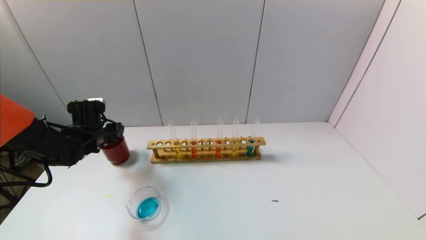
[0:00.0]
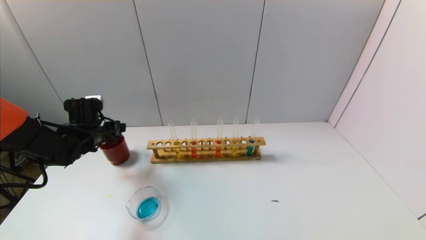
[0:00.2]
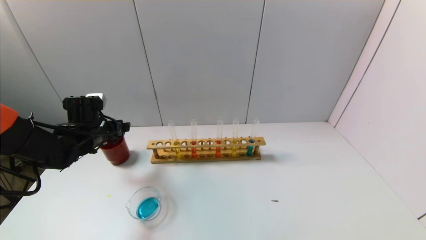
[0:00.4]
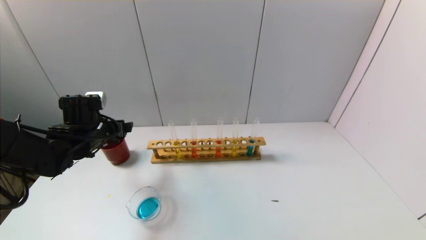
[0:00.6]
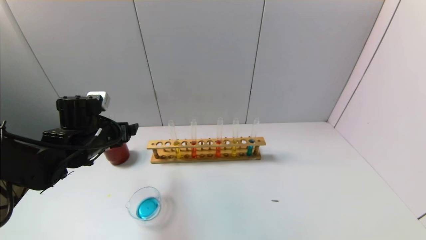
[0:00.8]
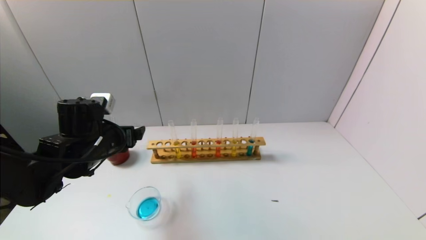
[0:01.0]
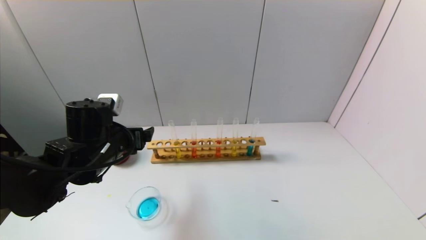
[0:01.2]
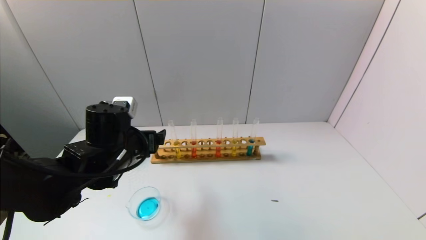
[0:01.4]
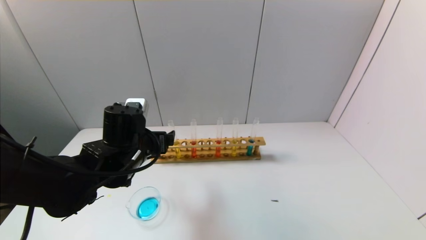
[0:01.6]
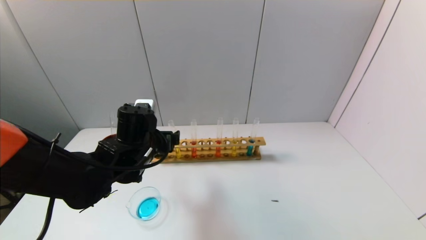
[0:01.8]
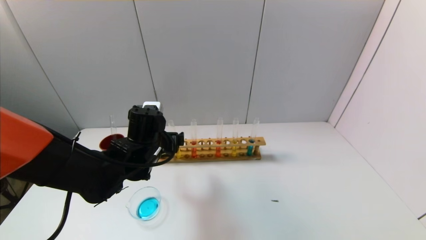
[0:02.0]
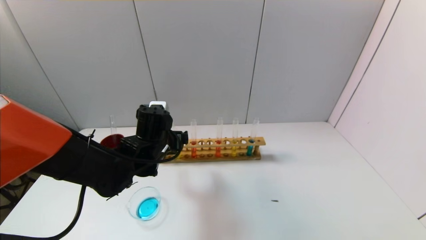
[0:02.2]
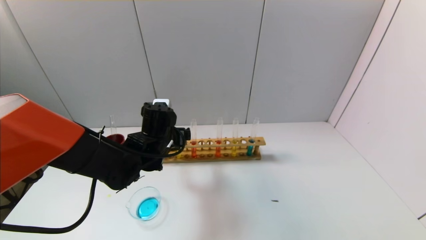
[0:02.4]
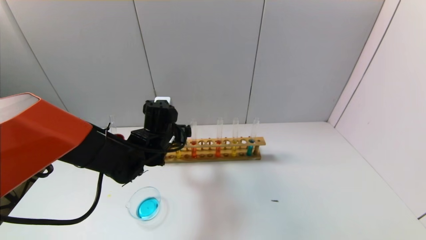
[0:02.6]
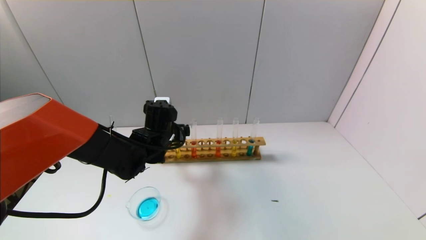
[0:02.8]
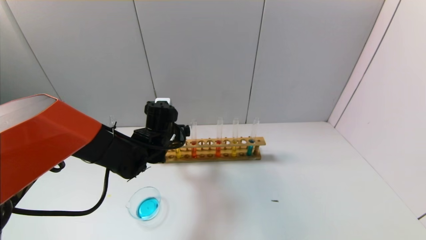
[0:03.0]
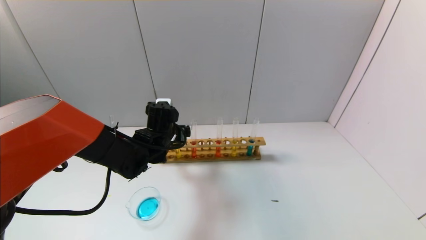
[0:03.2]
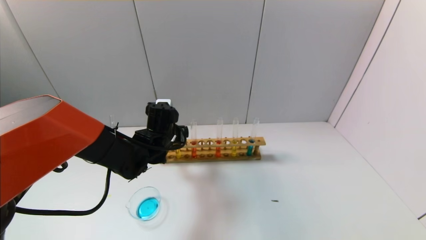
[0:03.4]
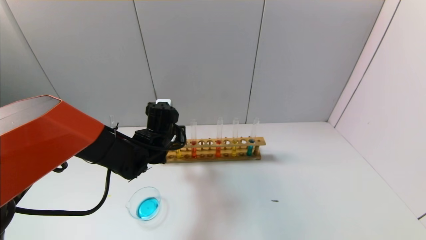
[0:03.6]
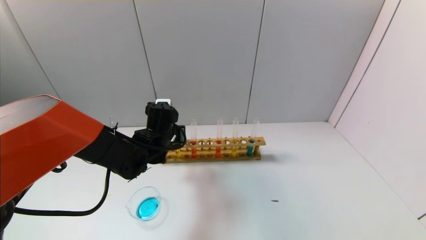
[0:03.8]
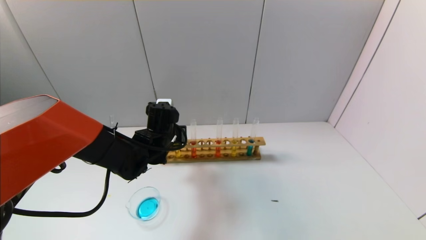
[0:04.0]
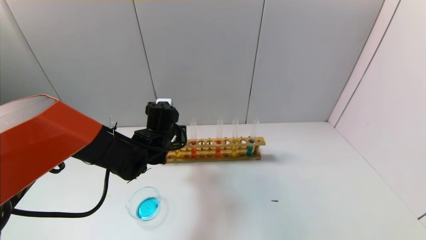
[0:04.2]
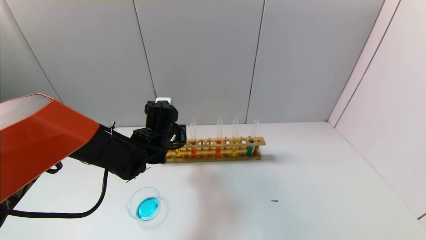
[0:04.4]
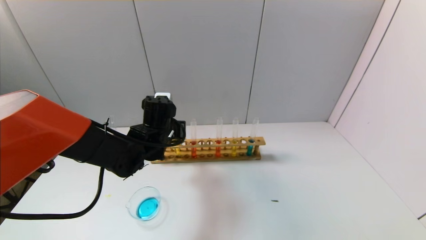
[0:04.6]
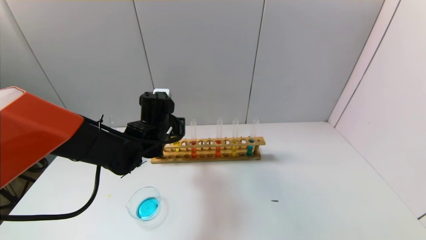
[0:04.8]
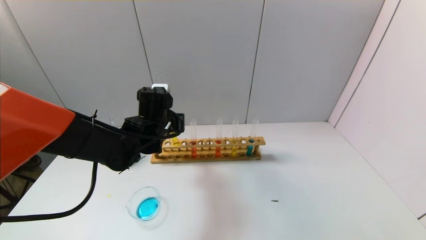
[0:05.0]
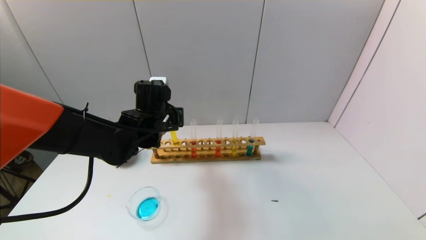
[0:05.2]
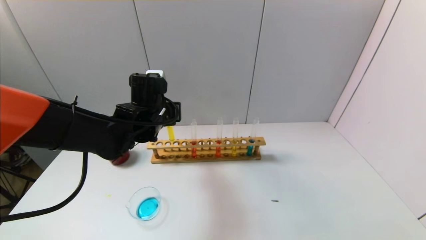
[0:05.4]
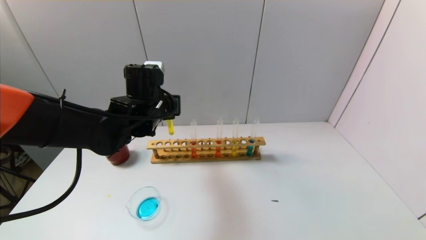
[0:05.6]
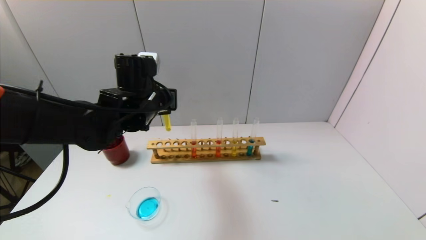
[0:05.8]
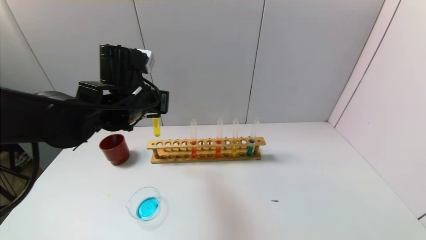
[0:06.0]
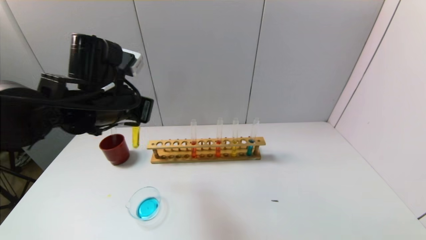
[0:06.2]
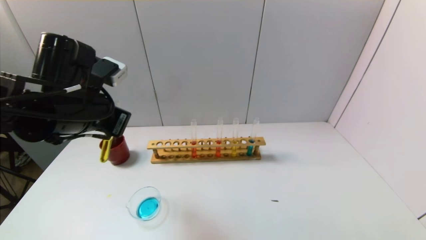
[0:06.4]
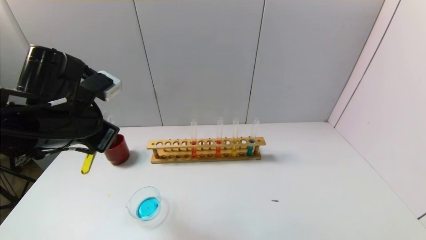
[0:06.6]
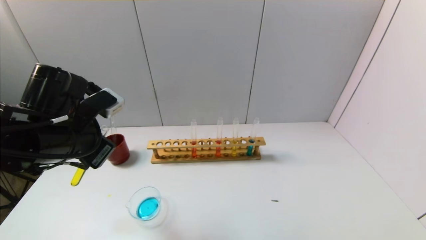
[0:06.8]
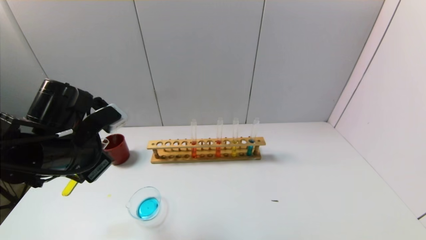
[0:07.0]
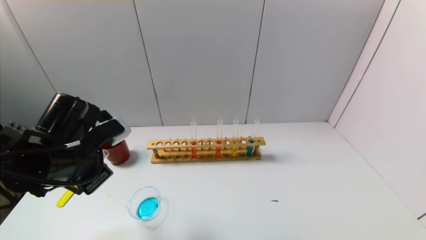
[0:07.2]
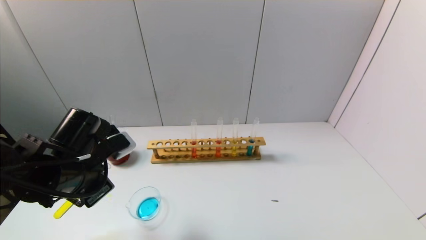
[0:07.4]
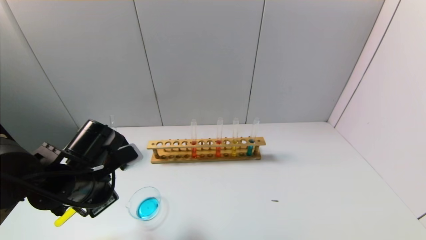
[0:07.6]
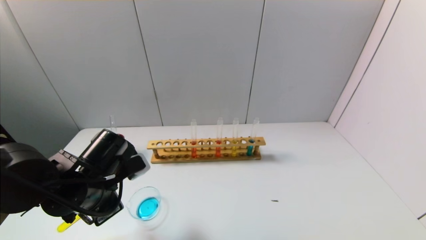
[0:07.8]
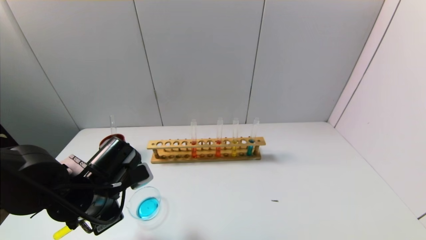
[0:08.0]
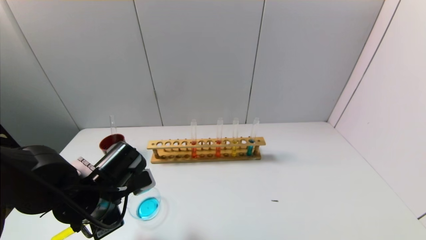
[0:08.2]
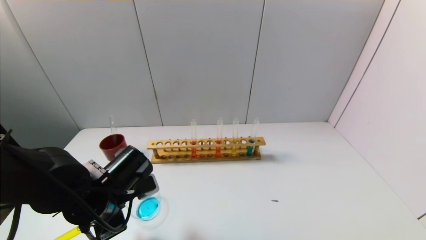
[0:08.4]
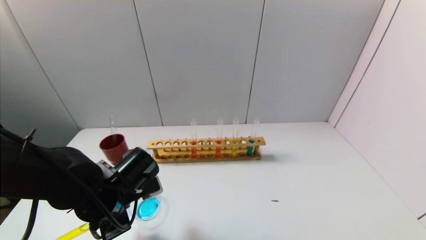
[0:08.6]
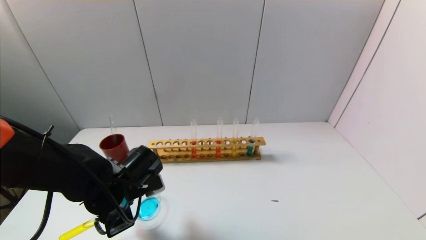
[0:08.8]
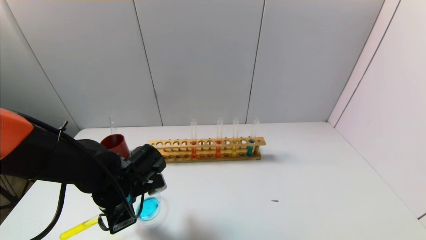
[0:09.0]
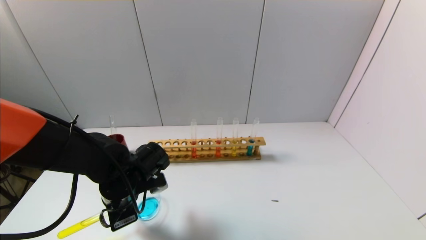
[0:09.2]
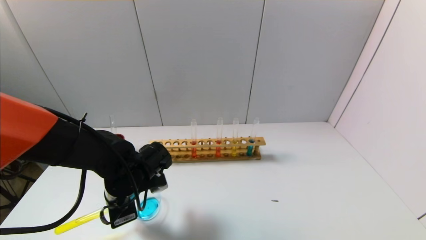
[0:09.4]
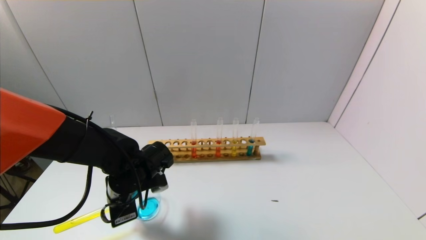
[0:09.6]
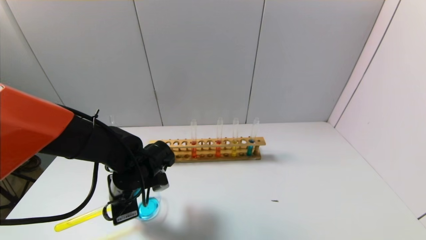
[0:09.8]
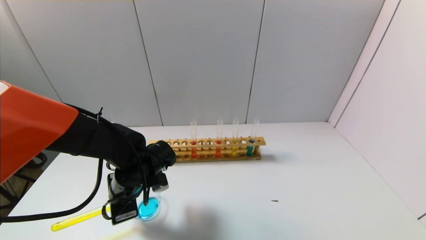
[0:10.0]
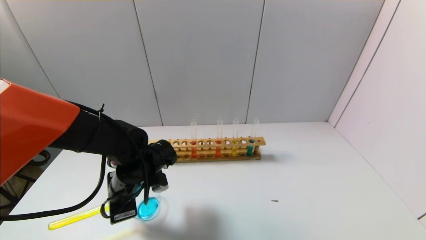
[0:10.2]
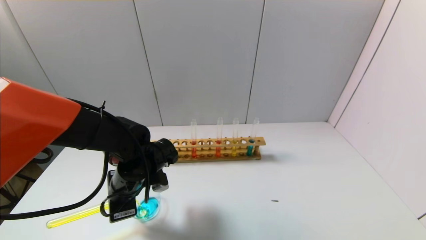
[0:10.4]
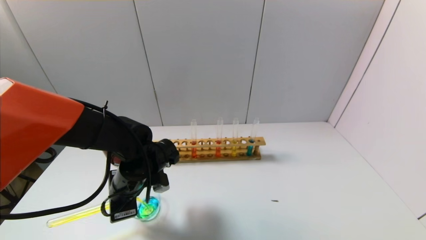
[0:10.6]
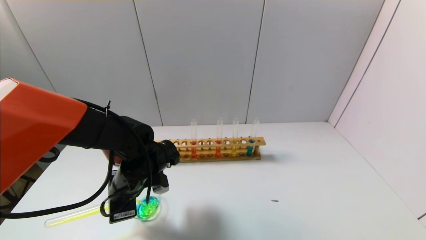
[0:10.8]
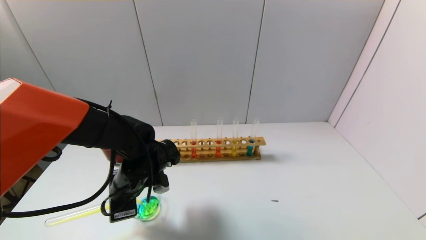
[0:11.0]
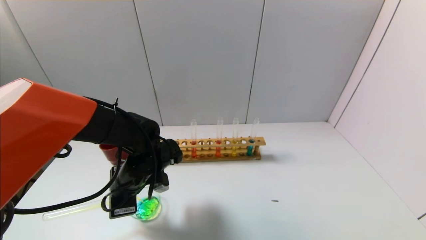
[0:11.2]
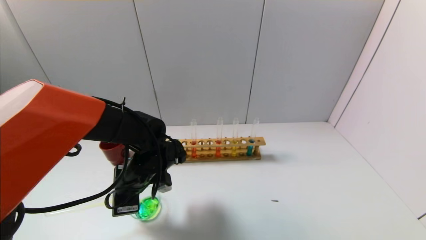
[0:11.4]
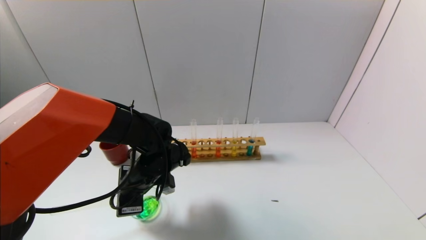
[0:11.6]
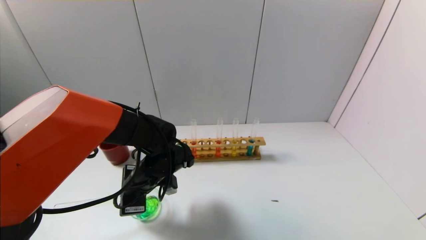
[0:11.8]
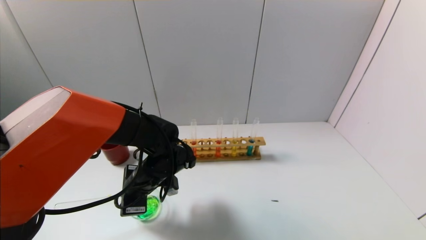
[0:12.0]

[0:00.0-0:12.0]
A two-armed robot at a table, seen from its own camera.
Task of the whole recording: pick up the test tube with yellow pigment and the test tube with blue pigment by grippers and pour them into the beaker.
Step, 0:00.2 to 0:04.0: Grasp the yellow reagent with the left gripper.
0:00.0 to 0:01.6: The left gripper goes approximately 20 cm to the right and backward.
0:01.6 to 0:03.0: The left gripper goes some 10 cm forward.
0:03.0 to 0:04.4: The left gripper closes up.
0:04.4 to 0:06.0: The left gripper is displaced upward by about 10 cm.
0:06.0 to 0:07.6: The left gripper heads backward, downward and to the left, covering roughly 15 cm.
0:07.6 to 0:09.0: The left gripper is displaced downward by some 5 cm.
0:09.0 to 0:10.4: There are only small adjustments of the grippers.
0:10.4 to 0:12.0: The grippers stay close to where they were, moving slightly.

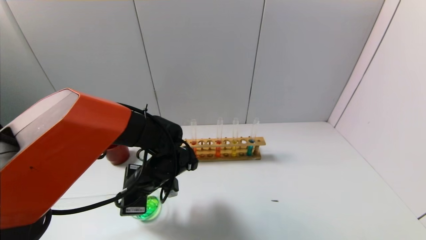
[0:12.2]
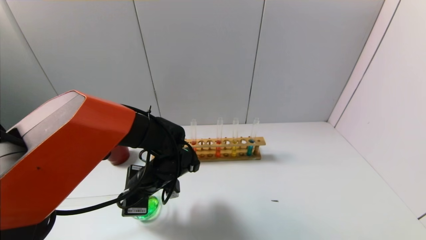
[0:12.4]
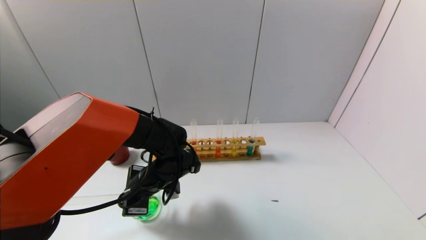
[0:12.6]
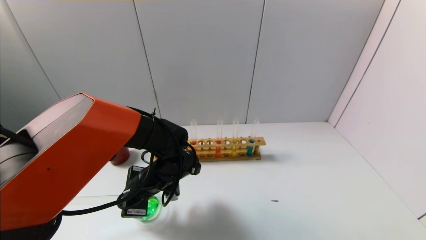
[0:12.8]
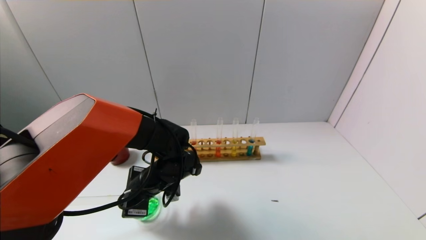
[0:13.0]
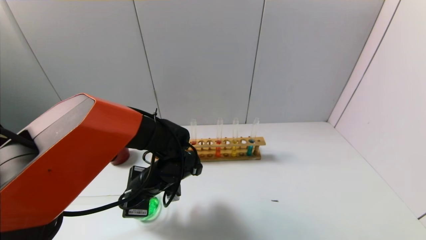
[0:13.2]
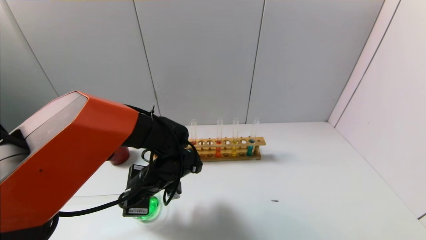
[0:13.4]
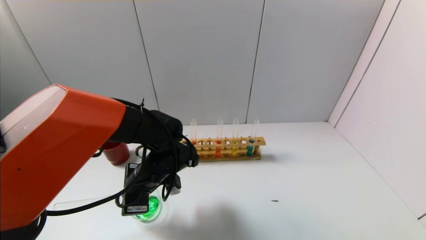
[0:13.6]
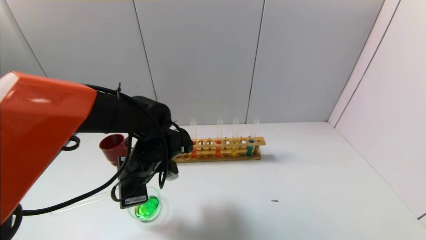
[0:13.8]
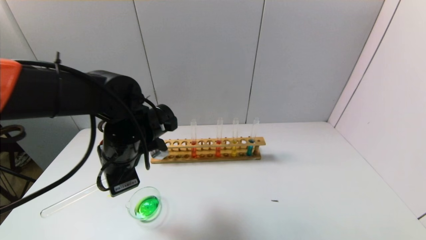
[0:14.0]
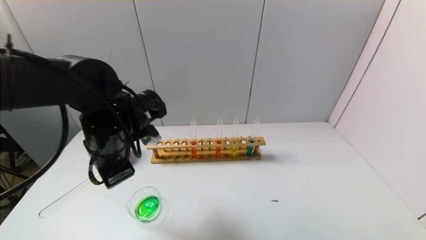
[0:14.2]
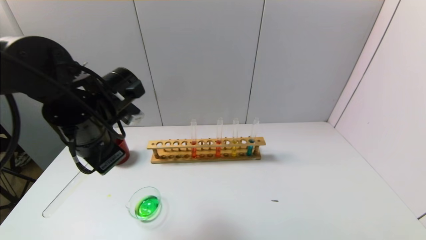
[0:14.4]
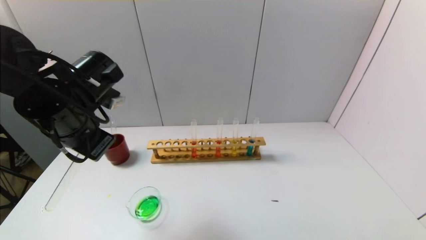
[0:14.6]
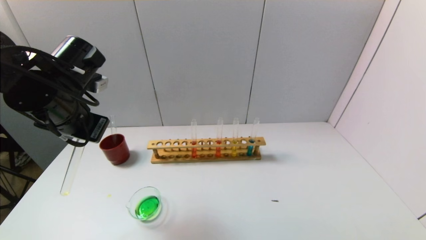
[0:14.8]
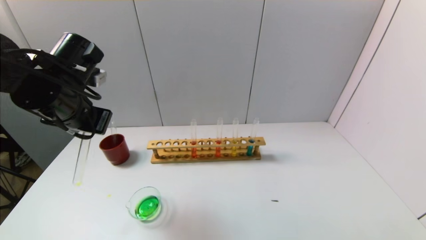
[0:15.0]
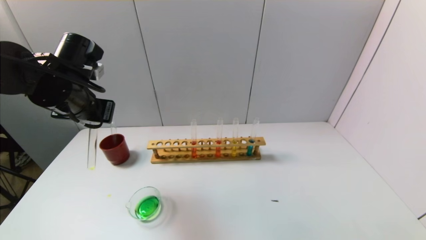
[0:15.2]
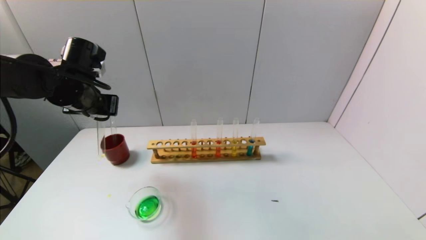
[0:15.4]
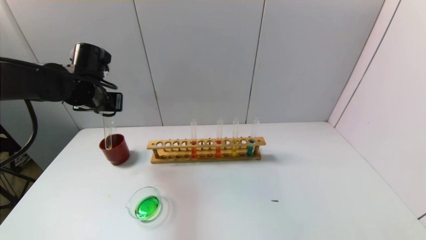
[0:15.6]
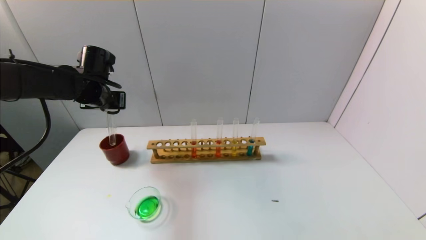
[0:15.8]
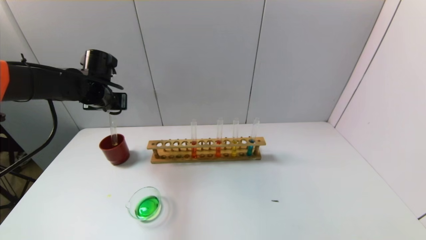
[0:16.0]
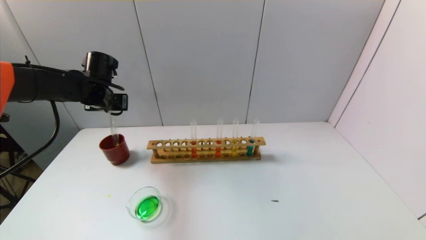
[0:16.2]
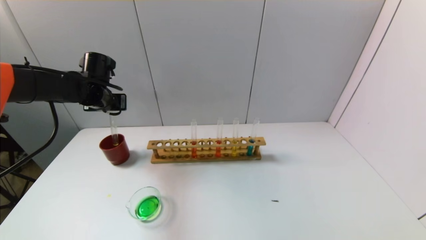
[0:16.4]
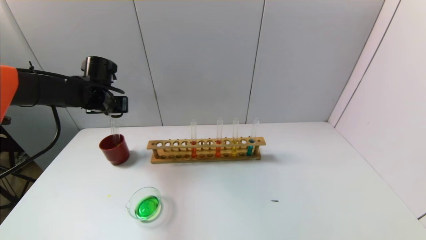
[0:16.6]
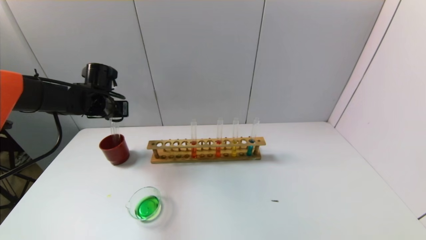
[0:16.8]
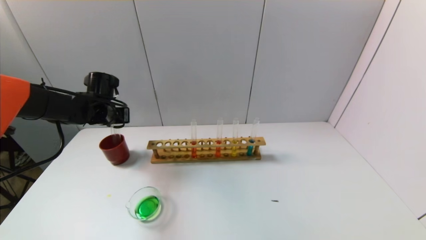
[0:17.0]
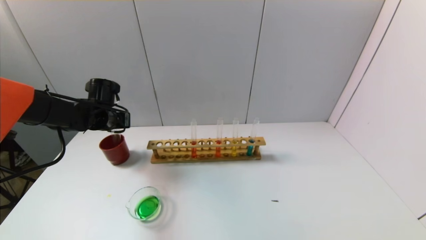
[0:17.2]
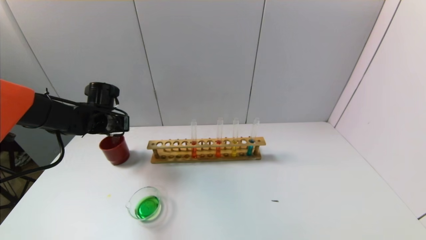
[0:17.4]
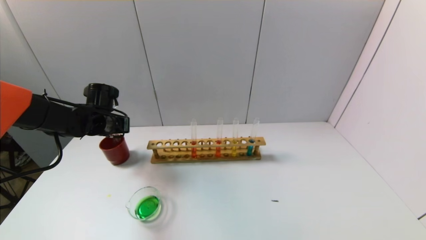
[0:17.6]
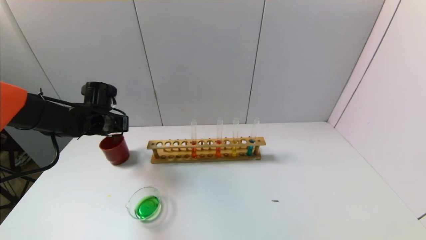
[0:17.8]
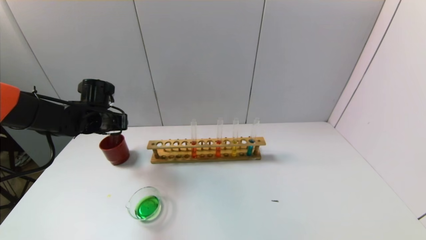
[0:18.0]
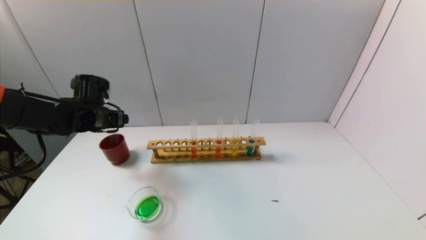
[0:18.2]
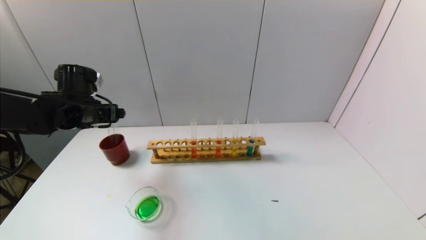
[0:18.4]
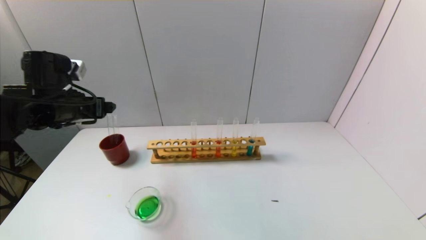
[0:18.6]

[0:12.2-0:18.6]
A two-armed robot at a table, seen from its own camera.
Task of the whole recording: pick up the test tube with yellow pigment and the test tube with blue pigment by grippers and pour them into the beaker.
Step, 0:14.0 to 0:18.0: Place the test tube into the brown cup with the left gripper.
0:12.2 to 0:13.8: The left gripper travels upward by roughly 5 cm.
0:13.8 to 0:15.4: The left gripper is displaced to the left, upward and forward by approximately 15 cm.
0:15.4 to 0:17.0: The left gripper travels downward and forward by approximately 10 cm.
0:17.0 to 0:18.6: The left gripper is displaced backward and upward by approximately 15 cm, and opens.
